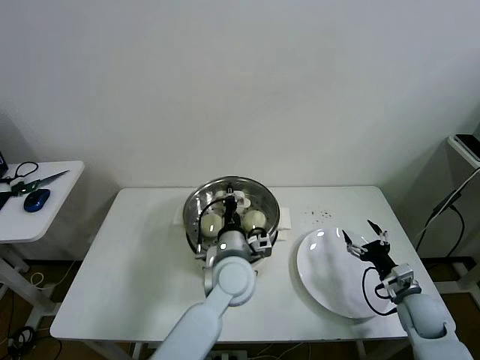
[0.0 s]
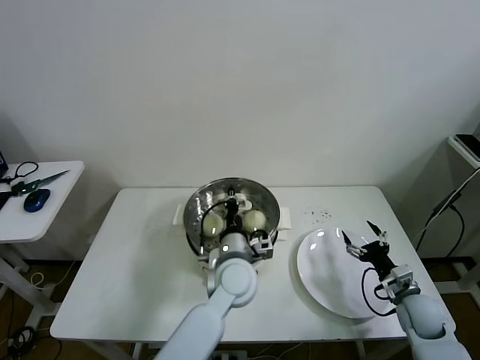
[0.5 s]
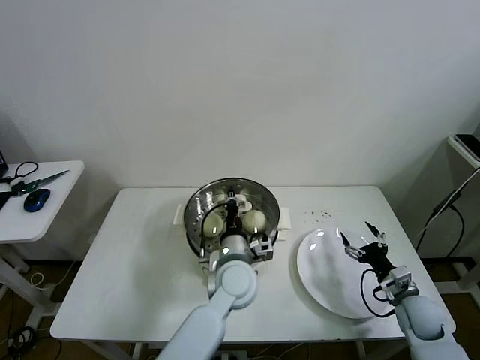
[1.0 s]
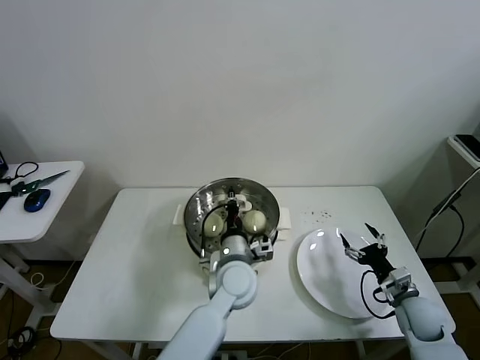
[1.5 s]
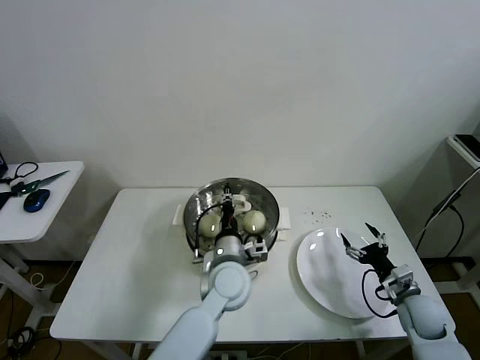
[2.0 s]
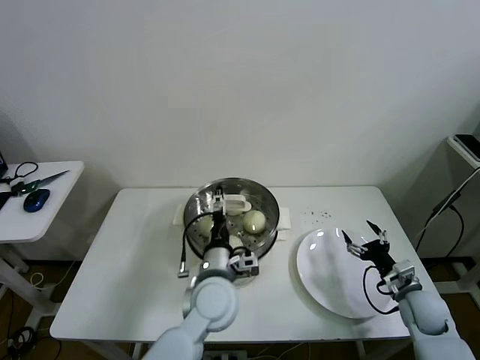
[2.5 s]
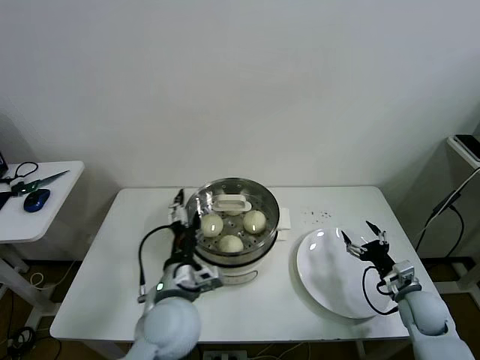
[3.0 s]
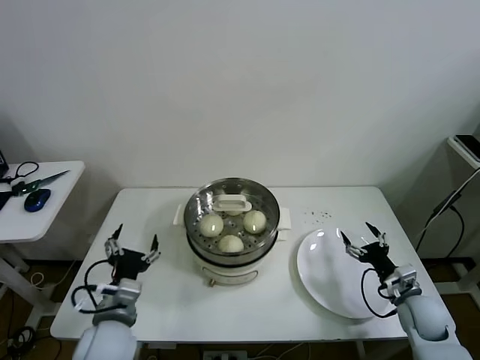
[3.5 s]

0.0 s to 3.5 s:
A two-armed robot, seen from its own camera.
Task of the whole recording: take steamed baozi put them in steamer then cover it.
Step, 0.0 to 2.0 s: Place the pot lid on the steamer with left gripper.
0.0 to 2.0 s: The grippers make only small movements.
2.0 to 3.5 s: The left gripper goes some 25 cm to the left and backward, and opens.

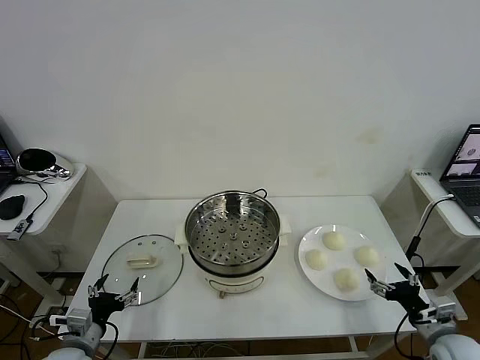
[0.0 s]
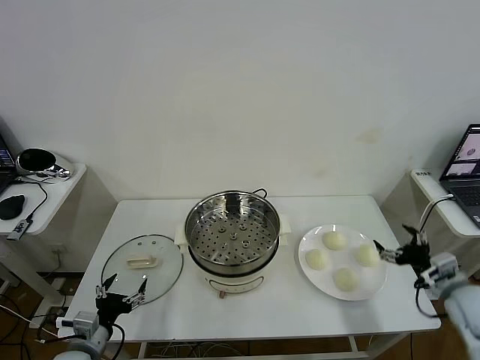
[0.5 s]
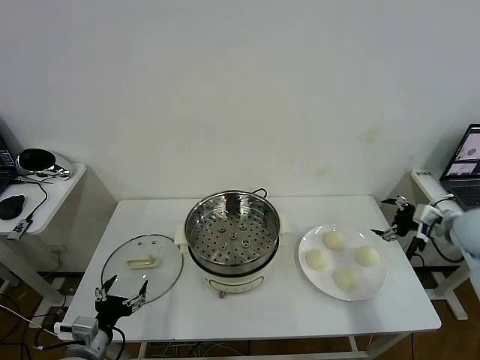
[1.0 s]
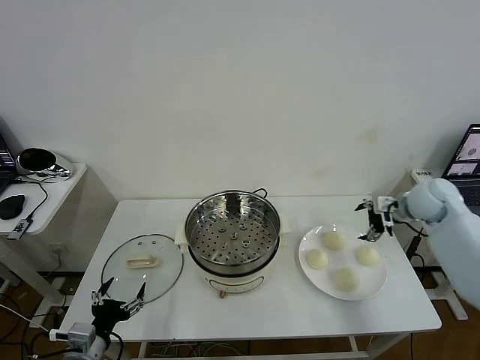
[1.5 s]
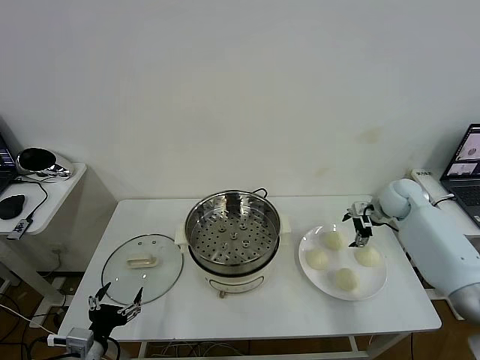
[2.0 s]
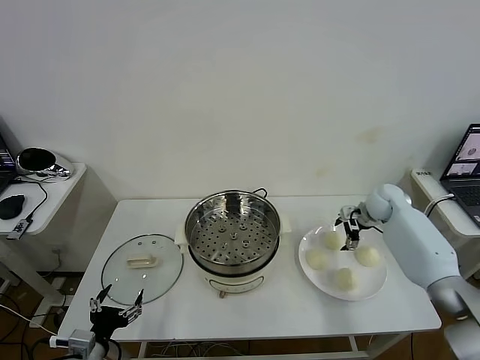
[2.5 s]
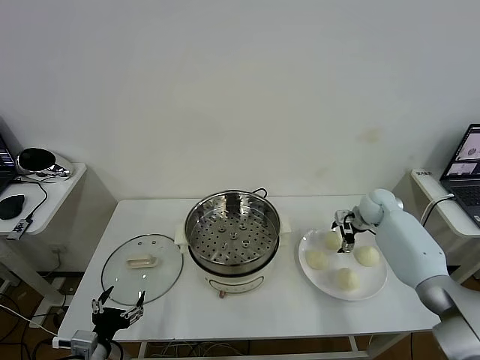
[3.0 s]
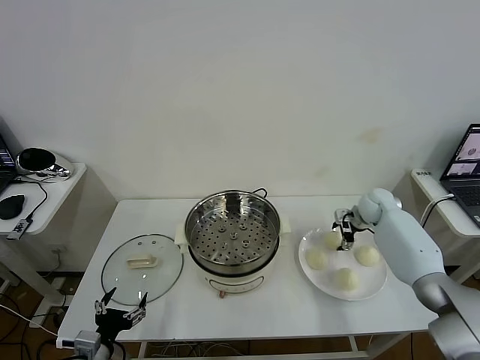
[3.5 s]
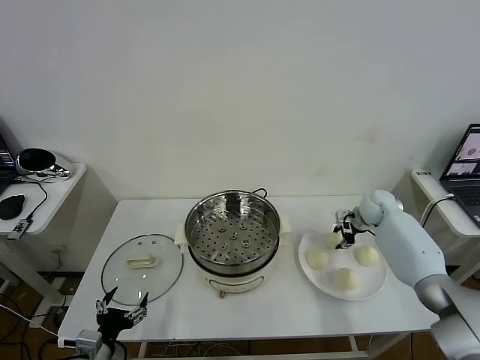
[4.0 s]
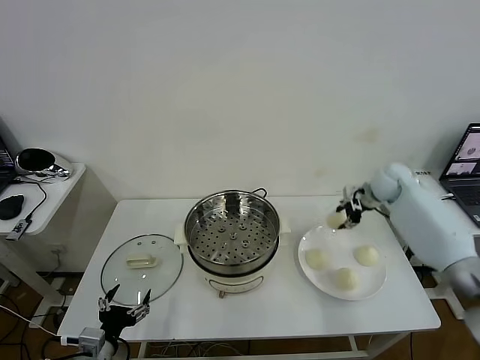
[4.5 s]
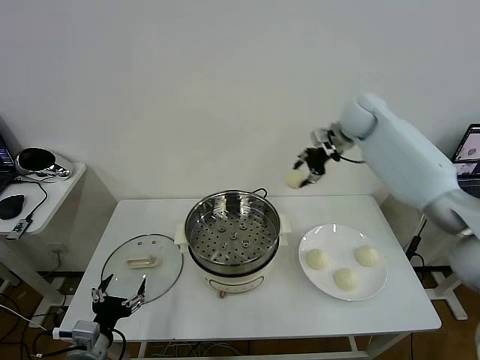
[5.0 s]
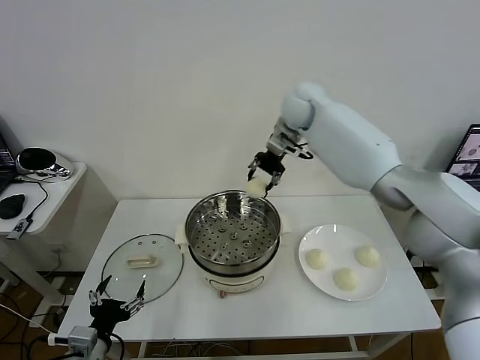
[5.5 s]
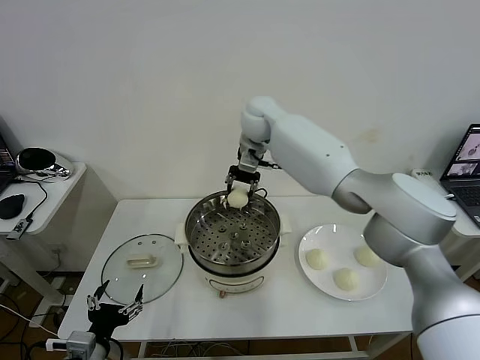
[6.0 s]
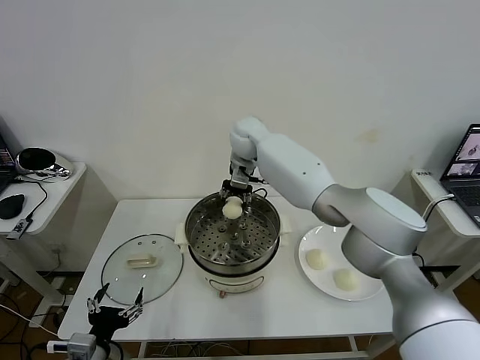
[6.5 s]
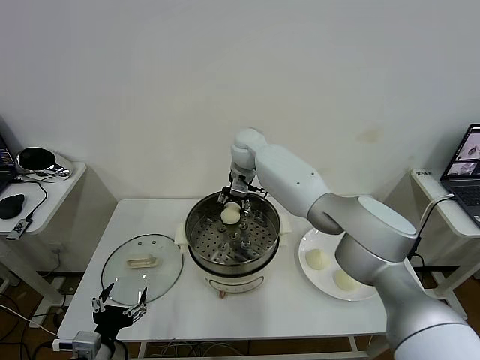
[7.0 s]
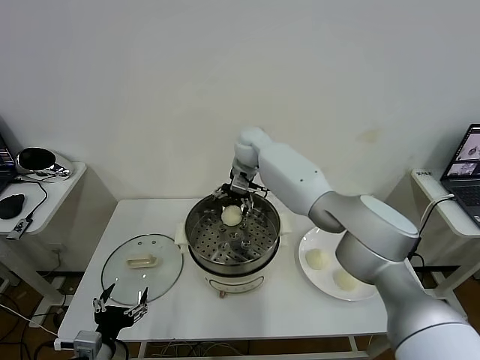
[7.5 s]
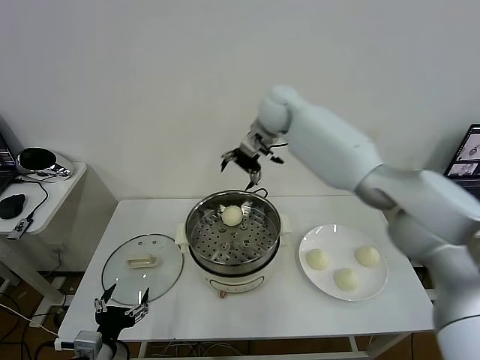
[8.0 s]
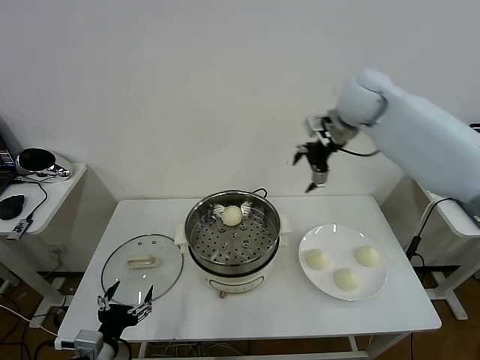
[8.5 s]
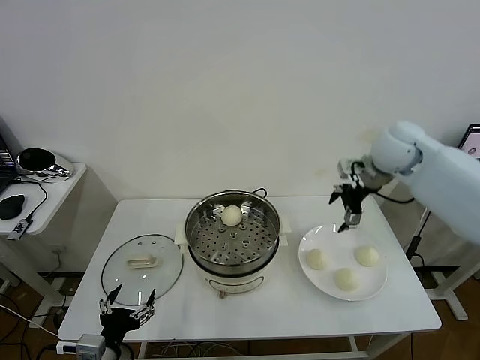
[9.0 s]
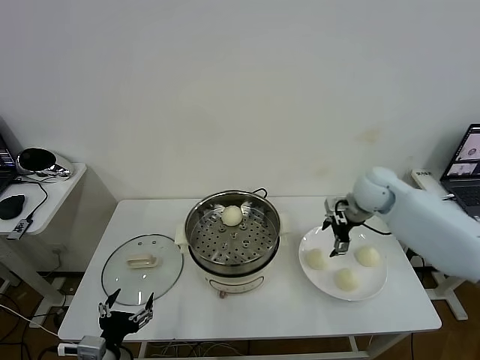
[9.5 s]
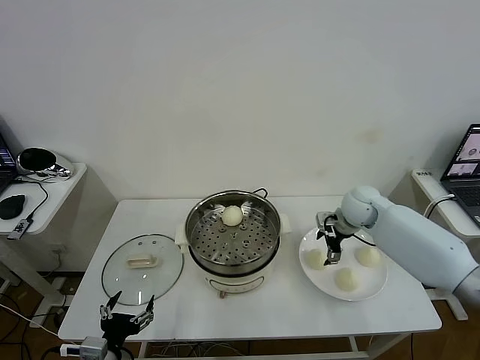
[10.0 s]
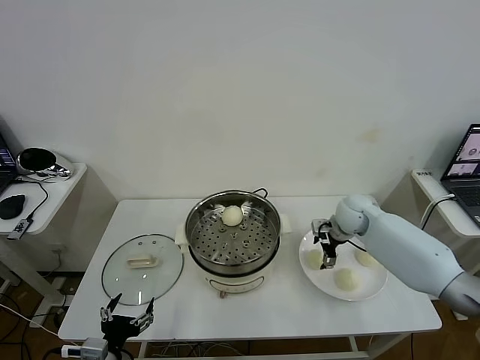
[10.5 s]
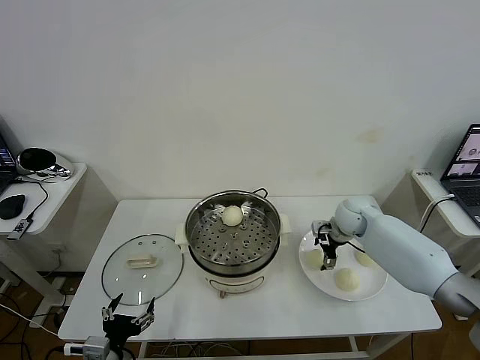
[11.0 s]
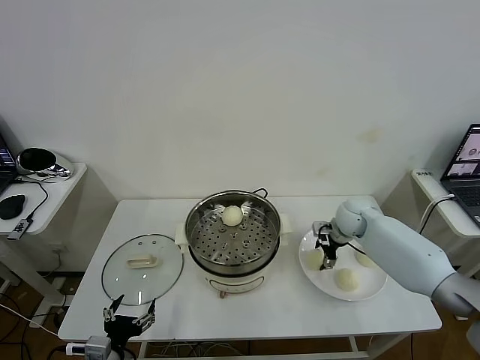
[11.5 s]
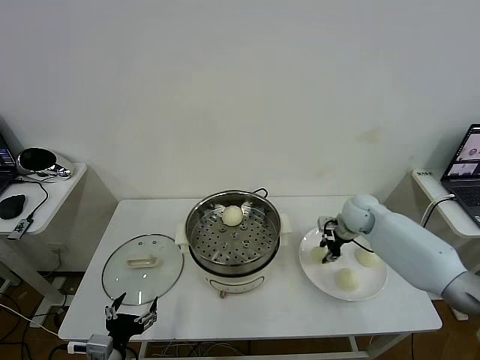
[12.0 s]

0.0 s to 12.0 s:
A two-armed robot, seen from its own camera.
Task of the whole recording: take steamed baozi put them in steamer then cover it.
Step, 0.0 to 3.5 s: Grasp the baozi in the plate with right gripper.
Step, 4.5 to 7.5 s: Place the baozi on the steamer with right gripper.
Step, 8.0 to 11.5 s: Grasp the baozi in the plate with right gripper.
2.0 to 4.0 s: The right gripper changes place by roughly 5 cm, and closes its fingers.
4.0 to 6.0 s: The right gripper shifts roughly 40 cm to the left and upward.
6.0 to 8.0 s: The right gripper moves to the right and upward, some 10 cm, and opens its fingers.
8.0 to 10.0 s: The right gripper moves downward, to the right and backward, some 30 cm.
10.0 to 12.0 s: The right gripper closes its fingers.

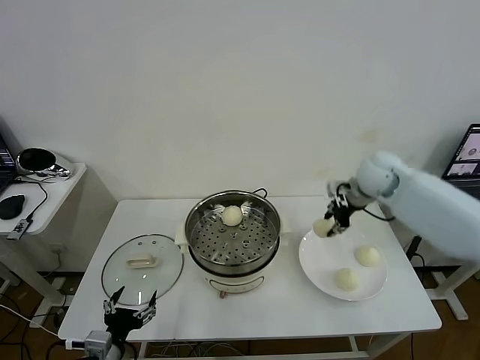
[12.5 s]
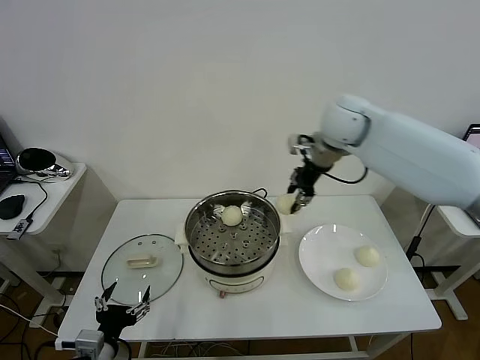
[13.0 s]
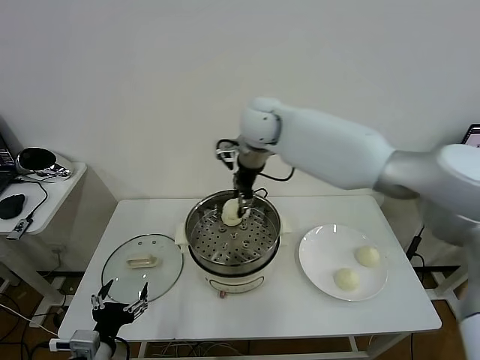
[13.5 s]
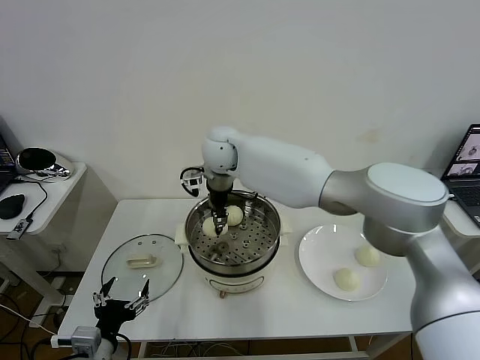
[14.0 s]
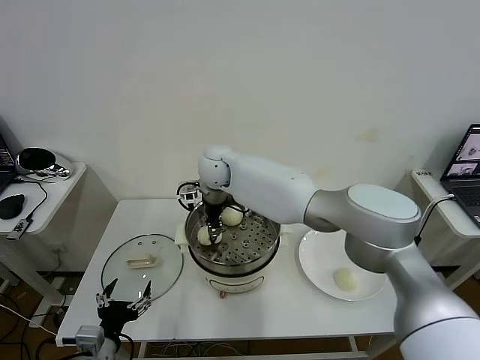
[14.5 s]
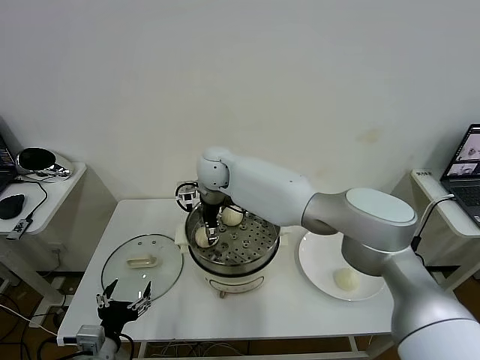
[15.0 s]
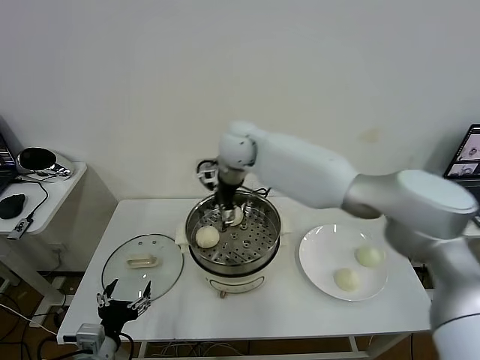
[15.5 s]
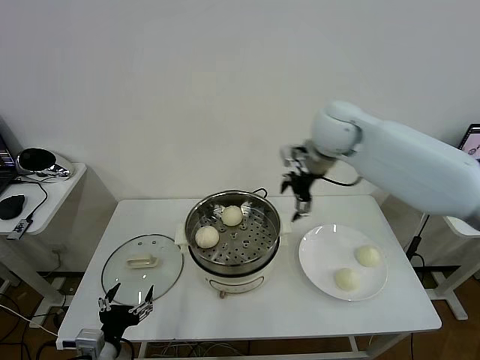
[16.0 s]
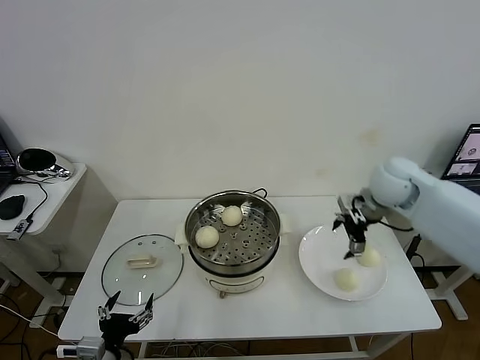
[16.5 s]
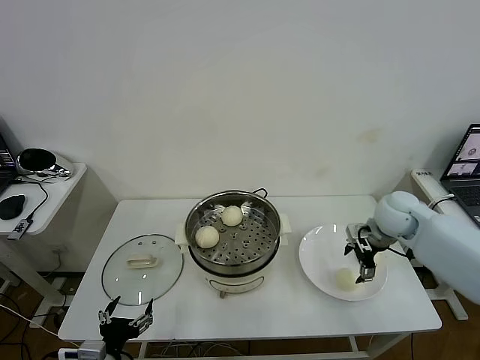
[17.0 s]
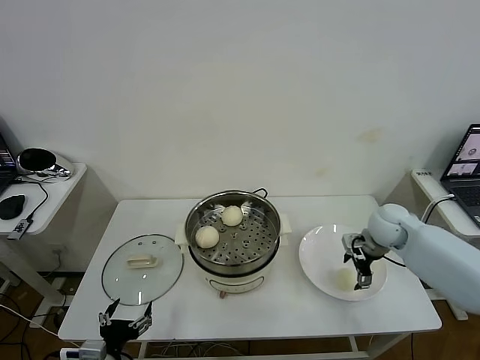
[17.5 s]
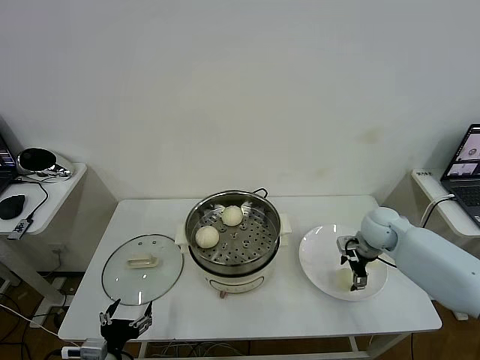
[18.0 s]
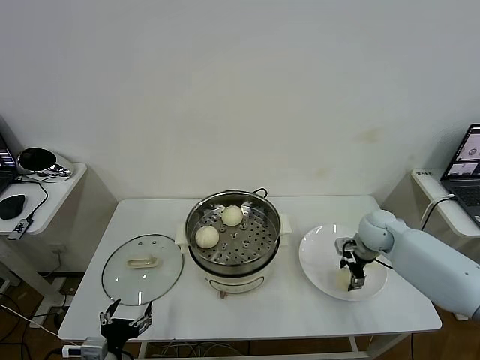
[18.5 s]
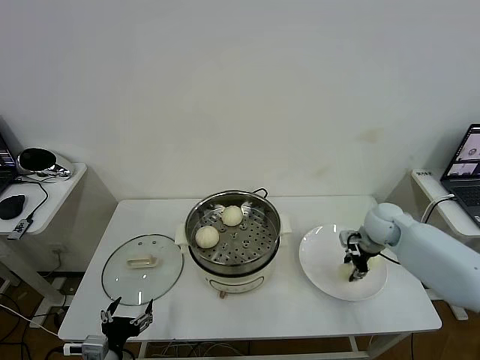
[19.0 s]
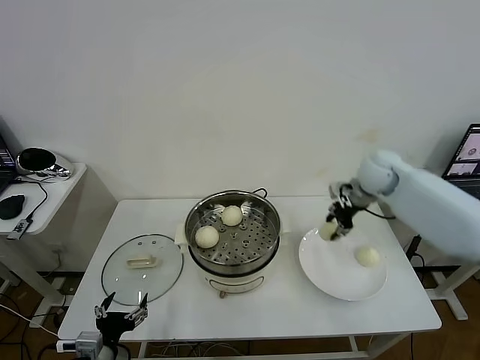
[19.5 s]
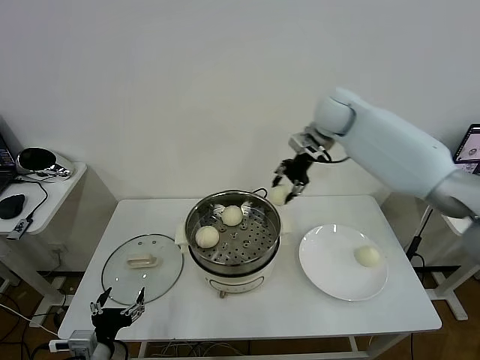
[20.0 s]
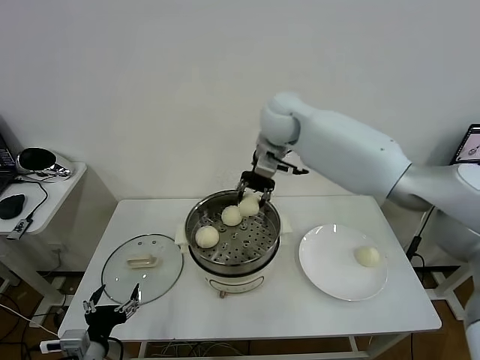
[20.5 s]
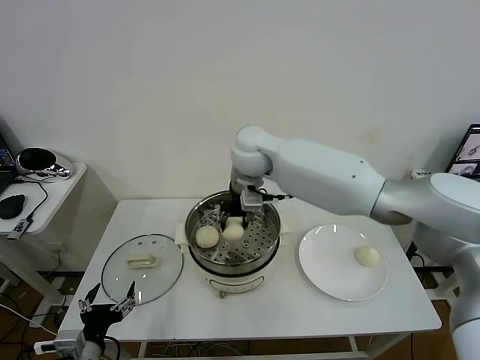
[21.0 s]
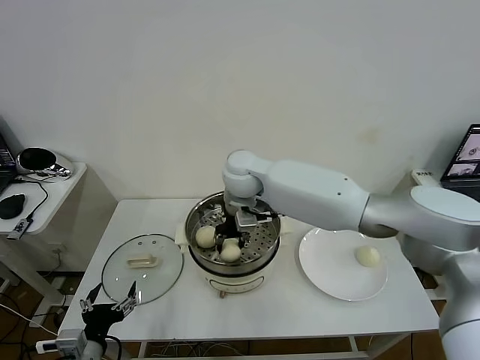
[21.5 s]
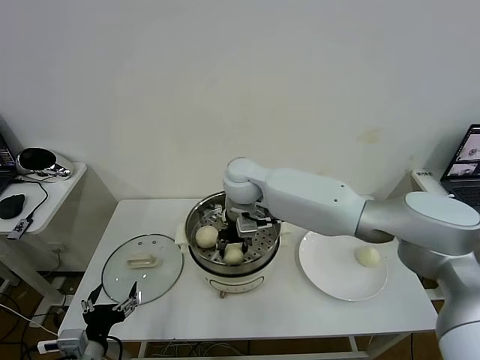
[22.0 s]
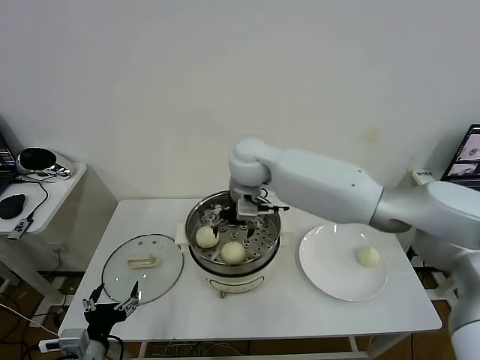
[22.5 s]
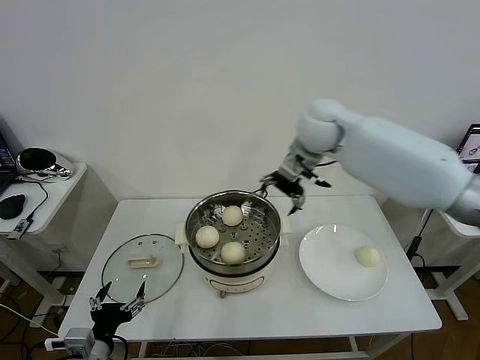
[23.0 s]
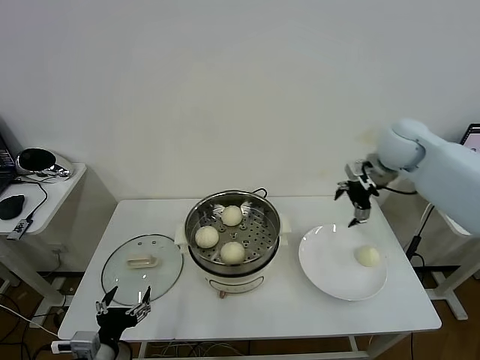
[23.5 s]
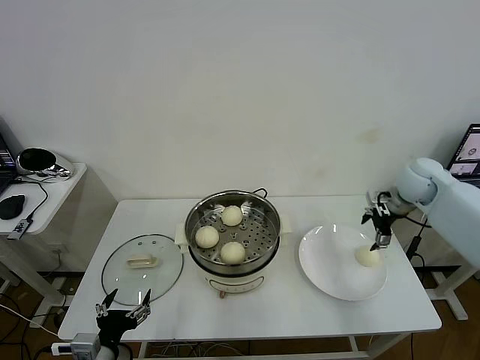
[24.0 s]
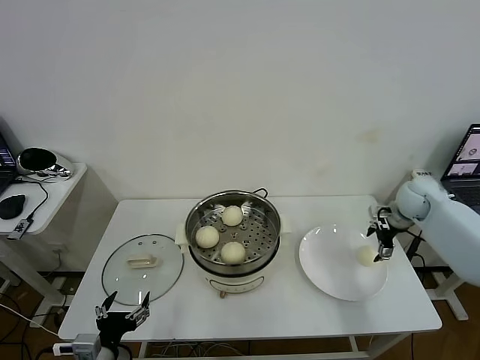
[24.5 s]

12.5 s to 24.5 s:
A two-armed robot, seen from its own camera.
Task of the whole recording: take steamed baozi put them in steamer then cover it.
Step, 12.5 to 15.0 s: Place the baozi on the steamer with right gripper.
Step, 15.5 to 18.5 s: Grasp the baozi in the plate with right gripper.
Step, 19.0 to 22.5 s: Place the baozi on the steamer with right gripper.
12.5 to 14.5 s: The right gripper travels to the left by about 35 cm.
14.5 to 16.5 s: The right gripper moves to the right, some 40 cm, and opens its fingers.
16.5 to 18.5 s: The right gripper heads downward, covering some 15 cm, and closes up.
18.5 to 20.5 s: The right gripper travels to the left and upward by roughly 35 cm, and closes up.
20.5 to 22.5 s: The right gripper opens its fingers.
22.5 to 24.5 s: The right gripper shifts some 40 cm to the right.
